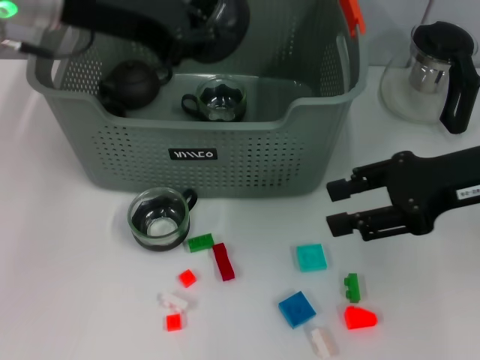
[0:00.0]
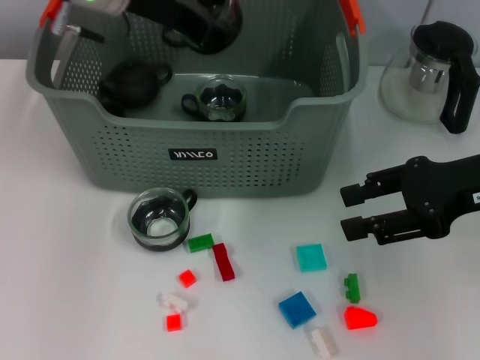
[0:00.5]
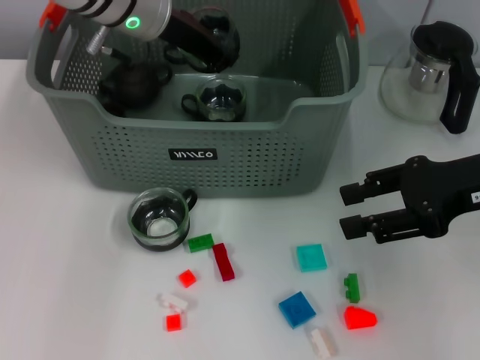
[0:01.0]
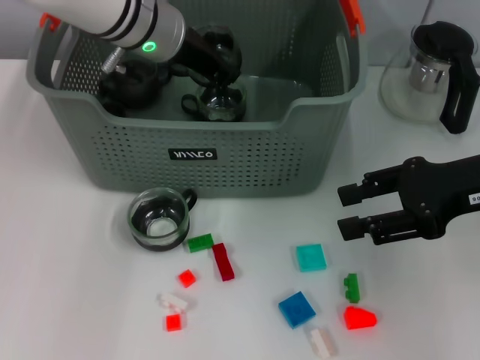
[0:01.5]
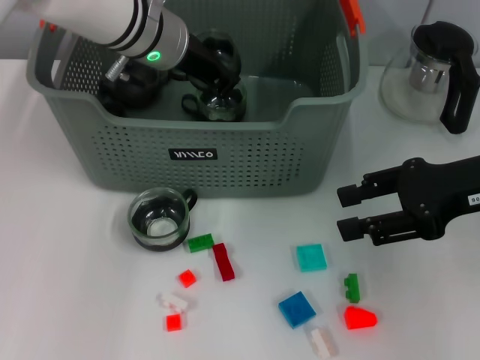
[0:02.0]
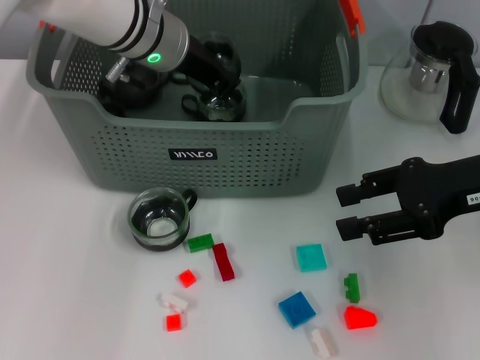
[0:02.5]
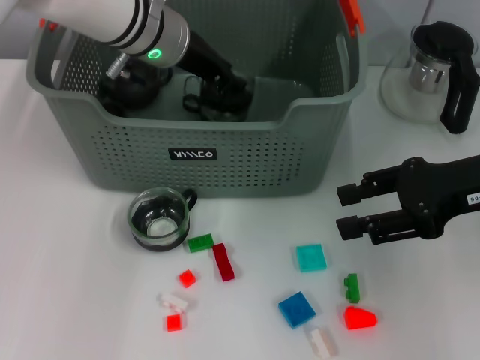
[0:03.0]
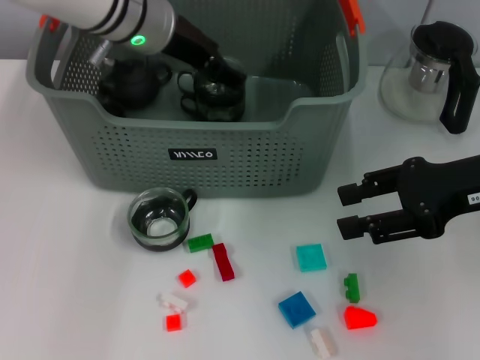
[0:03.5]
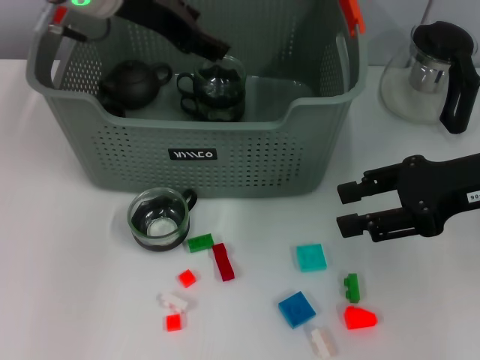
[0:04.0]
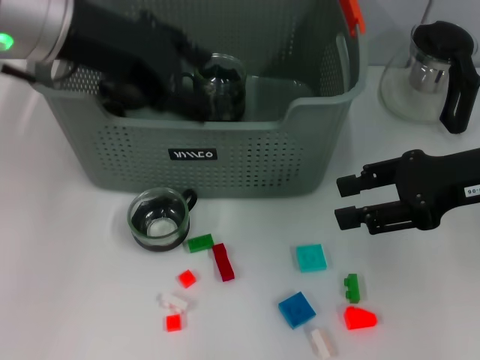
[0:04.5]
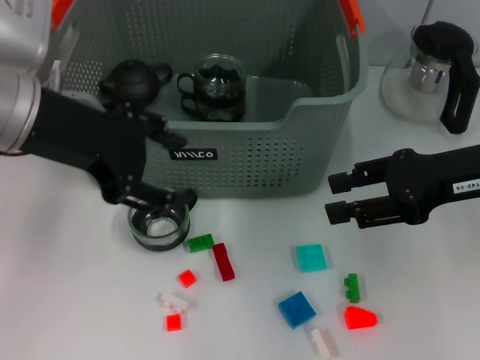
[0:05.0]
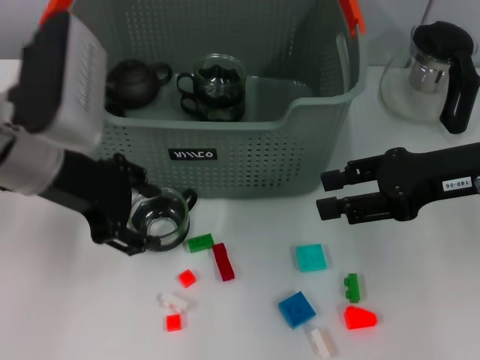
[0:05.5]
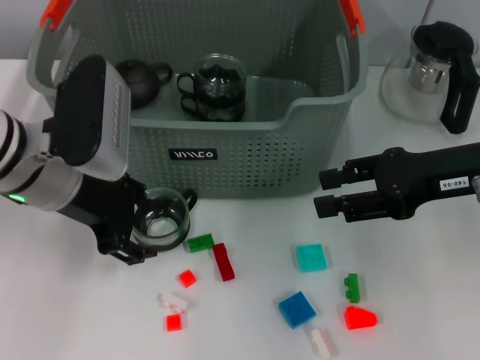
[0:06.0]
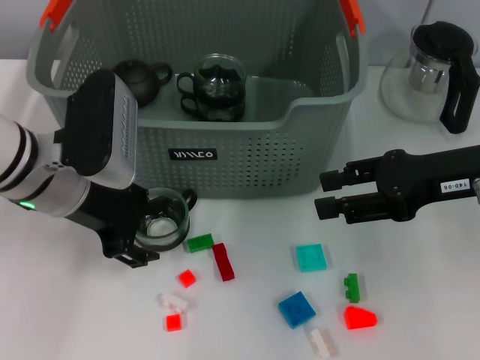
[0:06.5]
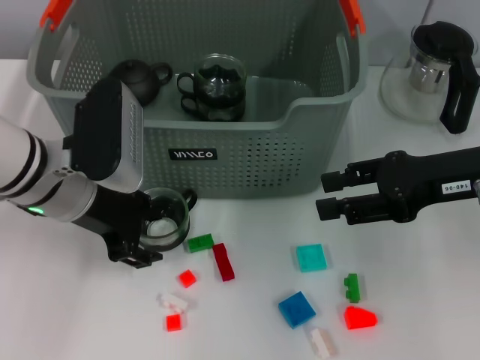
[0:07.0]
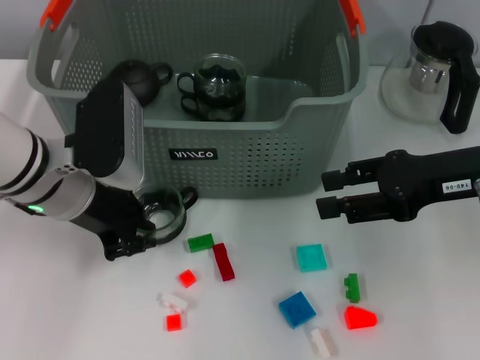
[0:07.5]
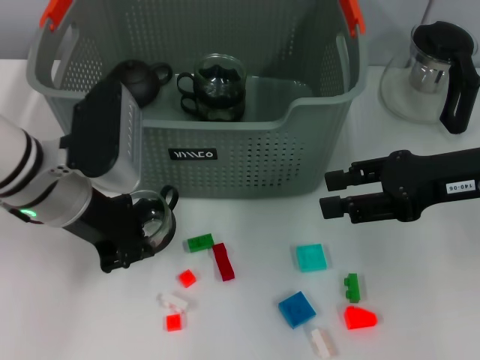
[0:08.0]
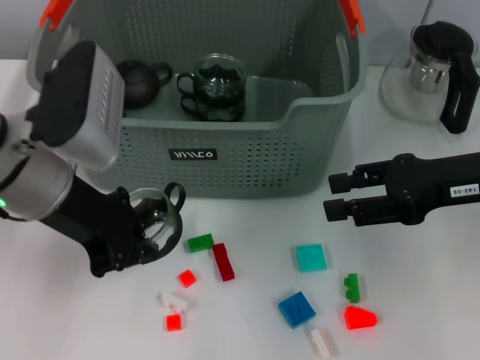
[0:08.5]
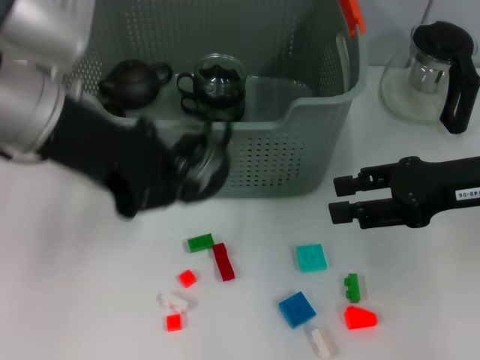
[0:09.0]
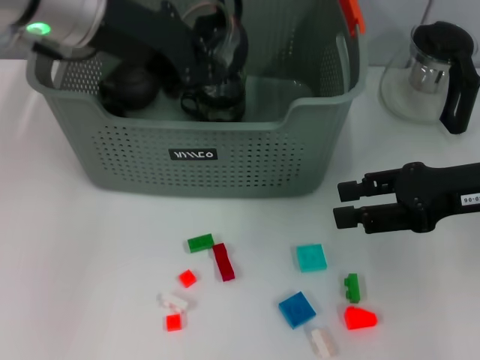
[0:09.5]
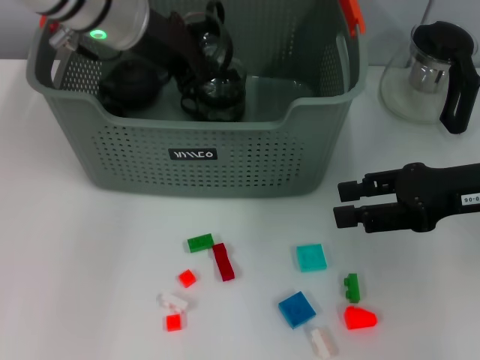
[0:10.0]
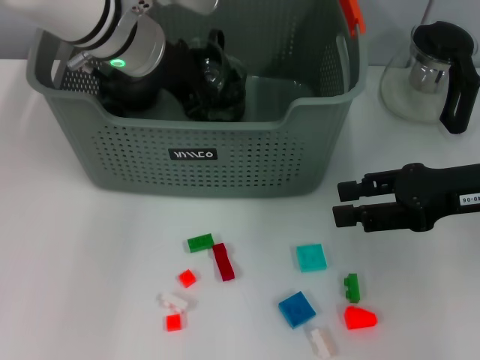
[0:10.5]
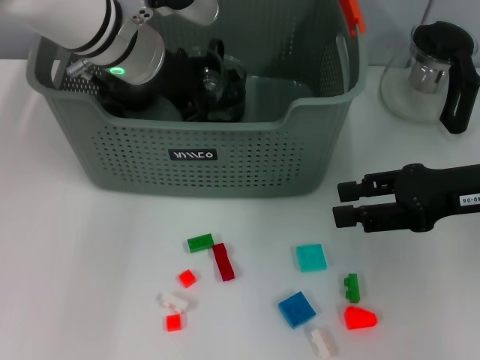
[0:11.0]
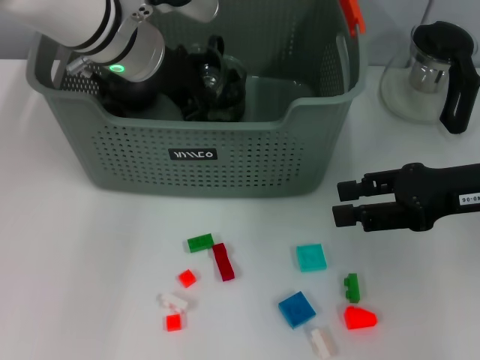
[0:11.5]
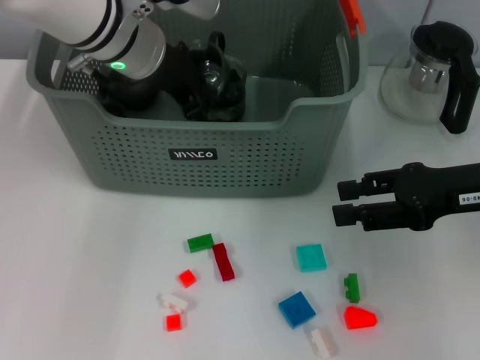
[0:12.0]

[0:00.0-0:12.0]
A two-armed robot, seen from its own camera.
Task of the whole recording: pick up the teacup on the table and place it into the storage bin, pick up the block on the table and place it into the storage bin.
Step, 0:00.0 to 0:04.0: Place the cup in the storage box with left gripper.
Step, 0:04.5 to 0:07.5: Grasp the cup with left gripper.
0:00.0 to 0:02.0: The left gripper is displaced downward, to the right and forward by about 15 cm.
0:02.0 to 0:04.0: The left gripper heads upward, covering some 10 cm, and opens its fingers.
0:04.0 to 0:06.0: The left gripper goes some 15 cm downward and backward.
0:06.0 to 0:08.0: The left gripper closes its fingers.
0:08.0 to 0:10.0: The left gripper goes roughly 15 cm forward and upward.
0:10.0 to 0:12.0: The grippers make only small movements.

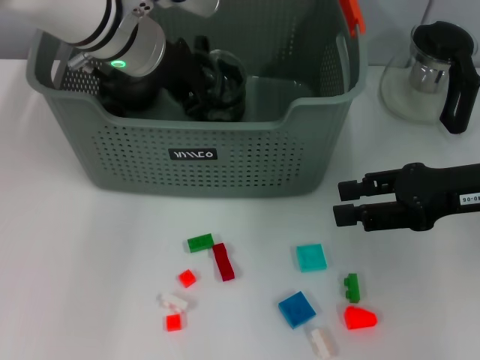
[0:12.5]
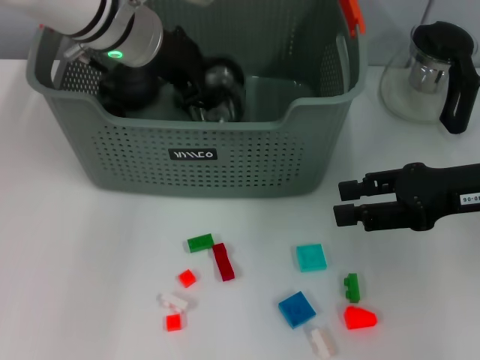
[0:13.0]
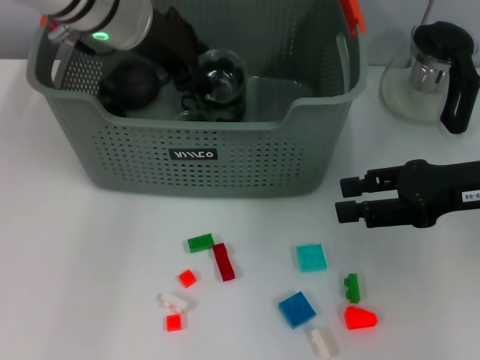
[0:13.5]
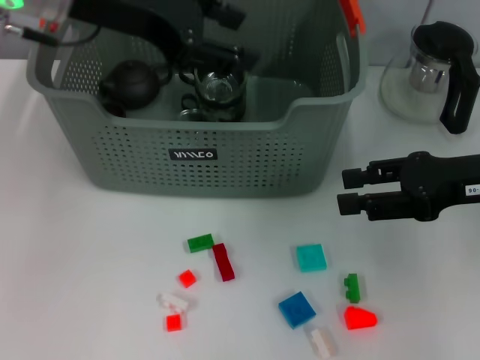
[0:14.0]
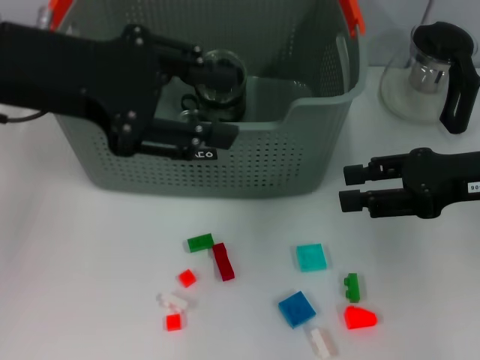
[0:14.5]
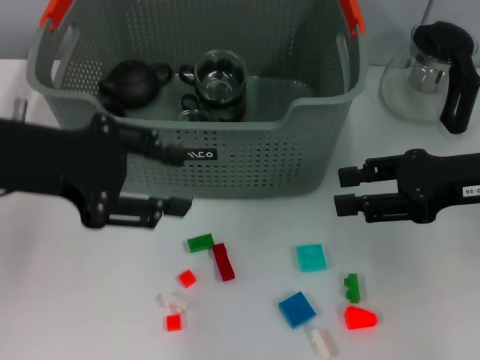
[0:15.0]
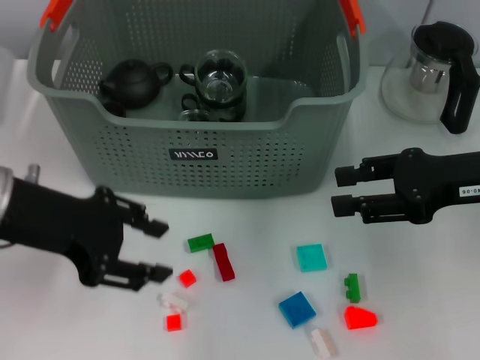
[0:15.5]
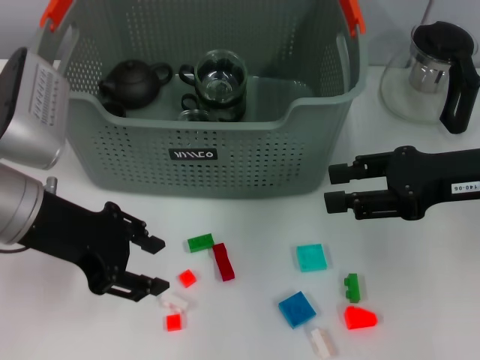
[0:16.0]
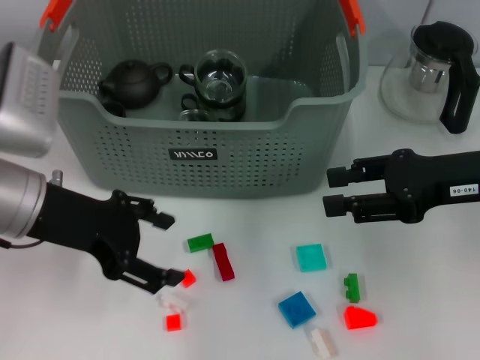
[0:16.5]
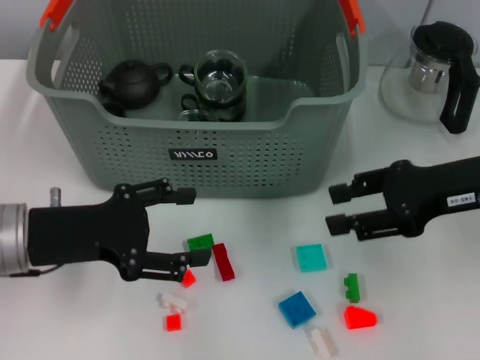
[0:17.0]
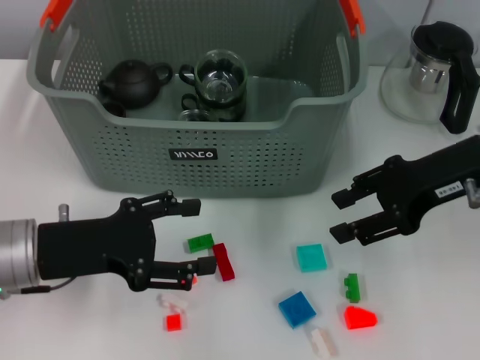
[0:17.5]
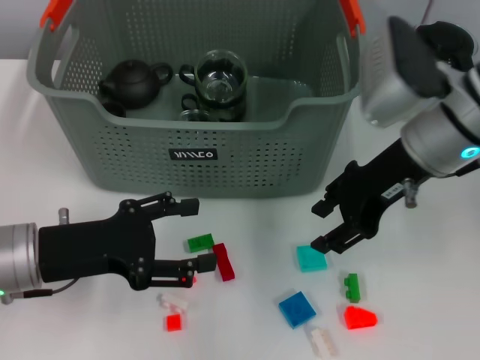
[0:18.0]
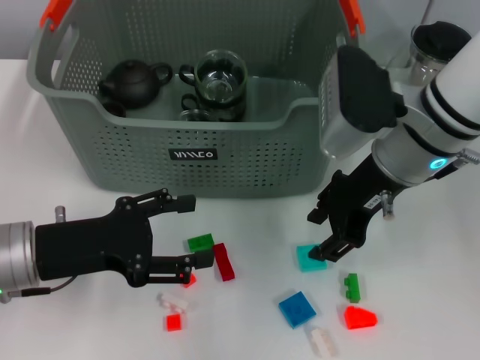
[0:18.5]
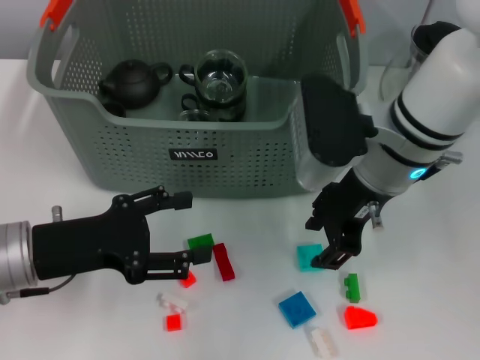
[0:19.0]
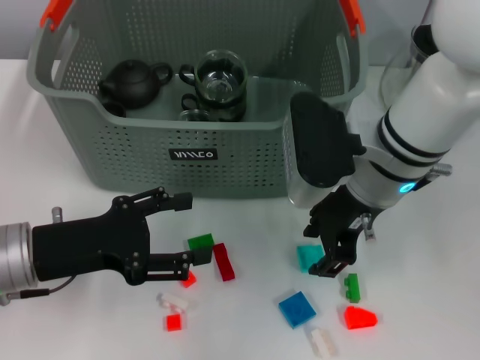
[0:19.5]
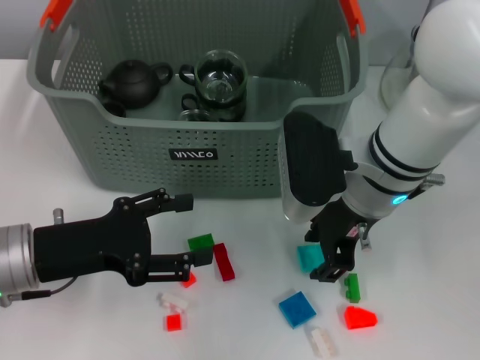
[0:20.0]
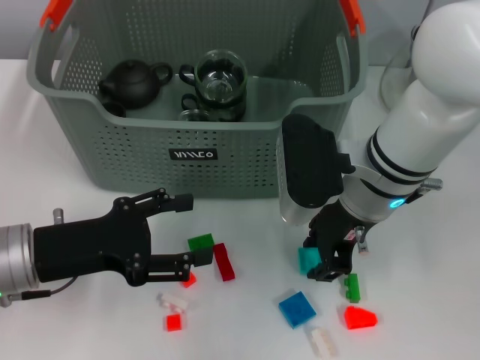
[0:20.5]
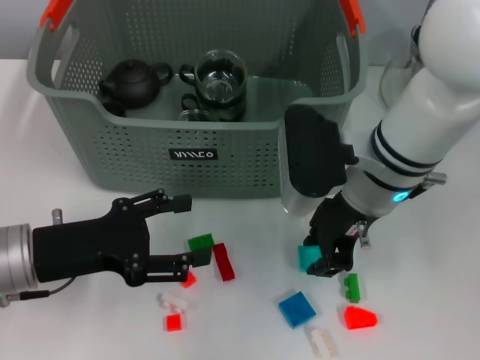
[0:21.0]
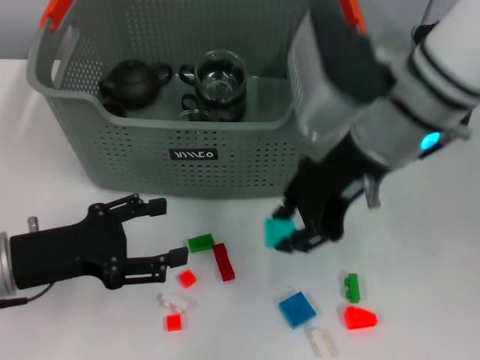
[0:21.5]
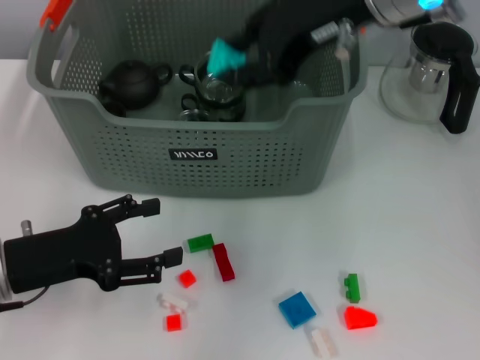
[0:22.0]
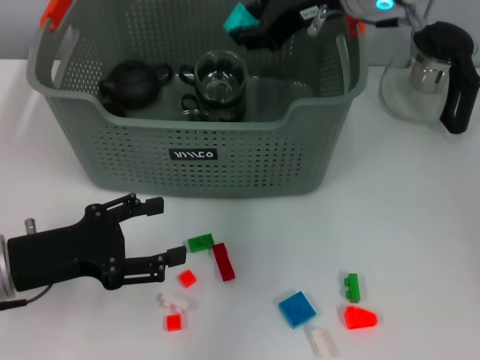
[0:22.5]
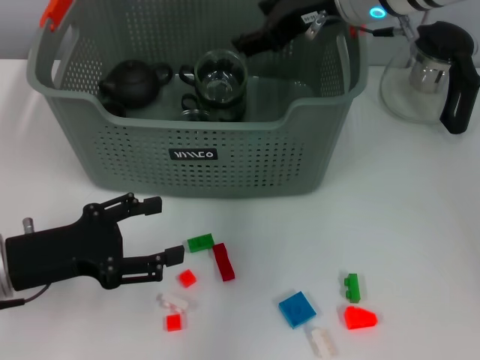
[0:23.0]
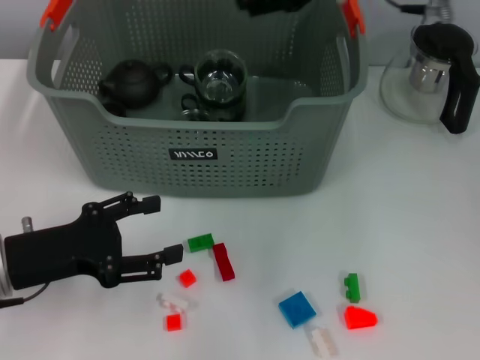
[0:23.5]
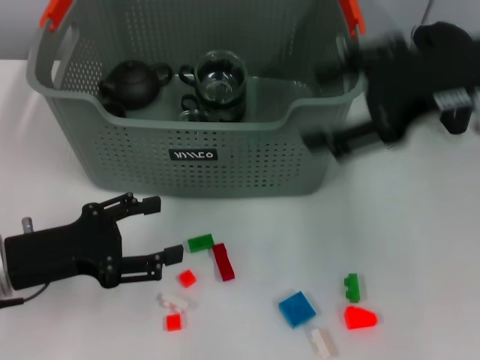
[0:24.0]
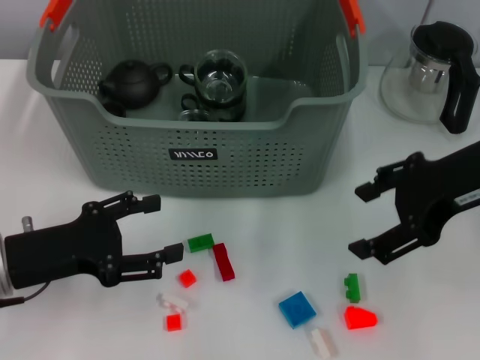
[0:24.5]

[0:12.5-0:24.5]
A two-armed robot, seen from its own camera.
Task of the whole recording: pick up the teacup on the table and place it into the storage bin, pick up the block on the table and place it into the storage bin.
Step, 0:14.5 to 0:20.5: Grasp the light blue block with right gripper.
Step, 0:21.0 to 0:23.0: Place the light blue block in the storage box with right gripper.
0:12.5 to 0:14.5: The left gripper heads backward, to the left and upward, covering approximately 15 cm, and opens its fingers.
0:14.5 to 0:16.5: The left gripper goes some 10 cm downward.
0:16.5 to 0:18.5: The right gripper travels to the left by about 10 cm, while the left gripper goes about 5 cm downward.
0:18.5 to 0:20.5: The right gripper moves about 5 cm.
0:20.5 to 0:22.5: The right gripper goes about 15 cm upward and forward.
0:22.5 to 0:24.5: The right gripper moves backward and to the right, roughly 15 cm, and opens up.

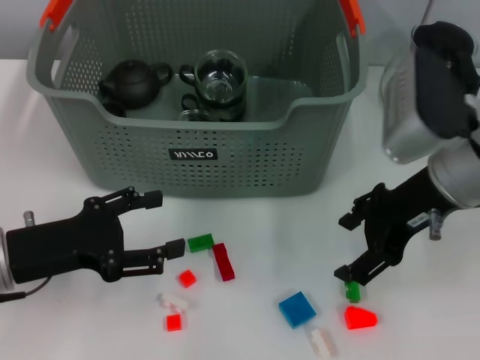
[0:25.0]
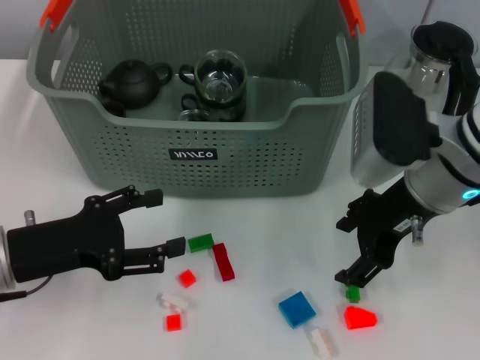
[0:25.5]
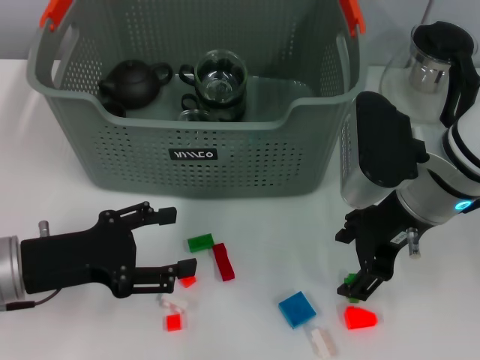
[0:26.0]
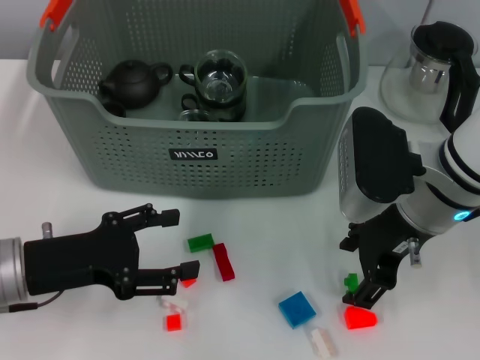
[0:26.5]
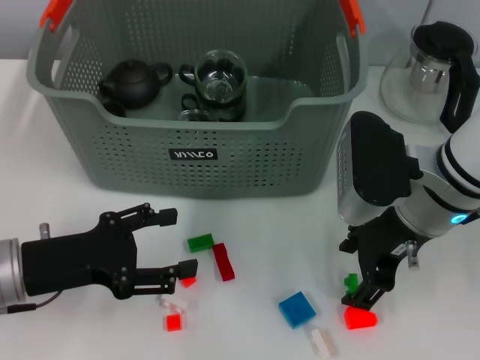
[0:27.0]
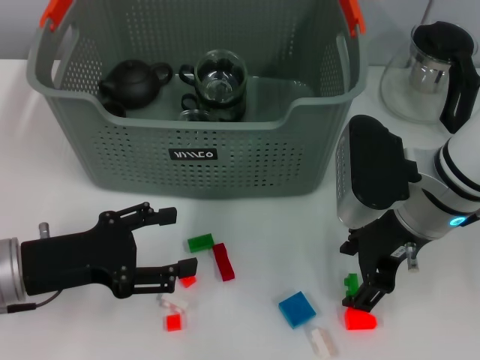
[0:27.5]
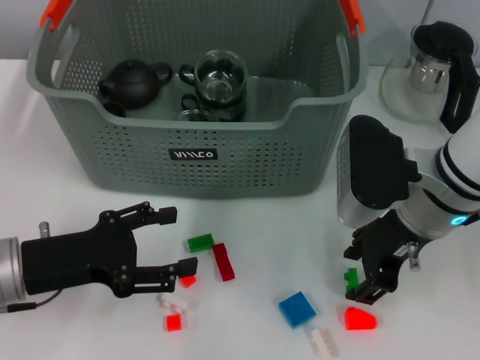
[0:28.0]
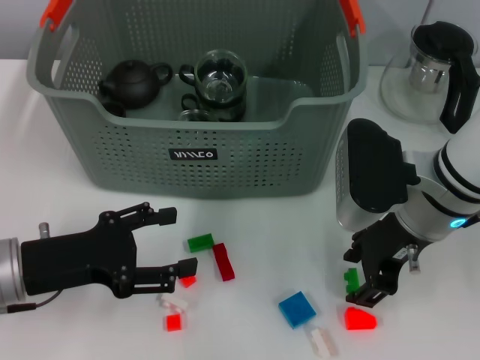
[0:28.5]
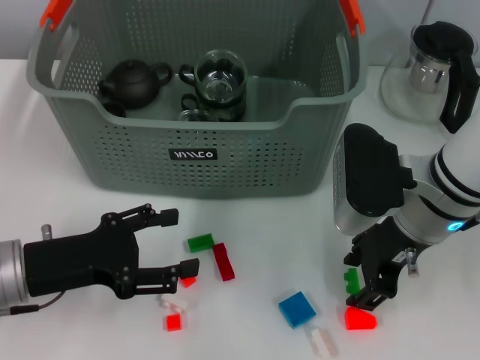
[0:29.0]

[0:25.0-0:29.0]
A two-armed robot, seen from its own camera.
Task of the whole recording: pick up the teacup on the table and place it into the storage bin, pick up the block on the table and place it into the storage bin.
0:25.0 to 0:27.0: The grippers stay close to where they were, moving slightly.
0:27.0 to 0:29.0: The two grippers keep their place.
